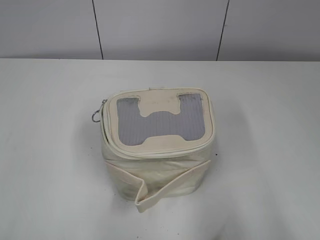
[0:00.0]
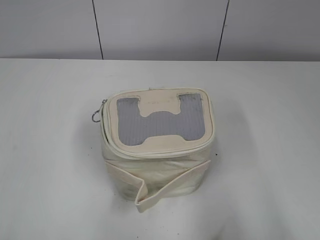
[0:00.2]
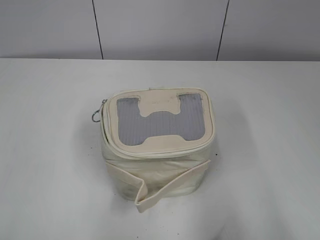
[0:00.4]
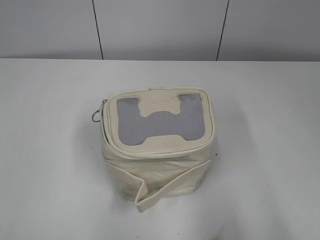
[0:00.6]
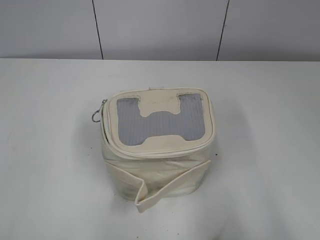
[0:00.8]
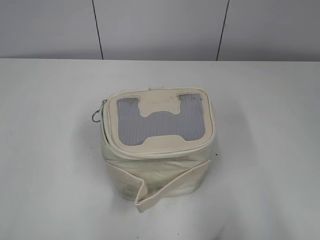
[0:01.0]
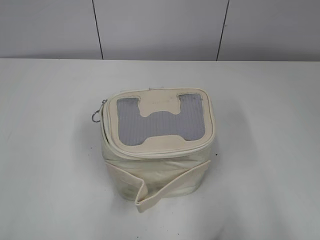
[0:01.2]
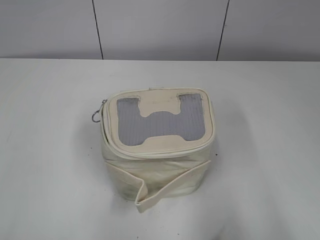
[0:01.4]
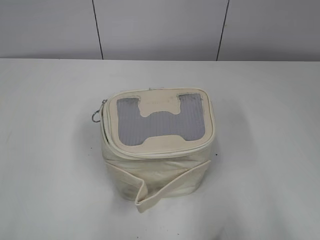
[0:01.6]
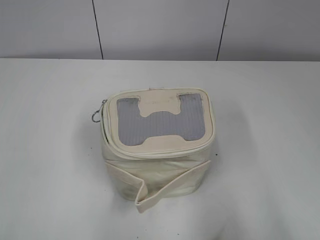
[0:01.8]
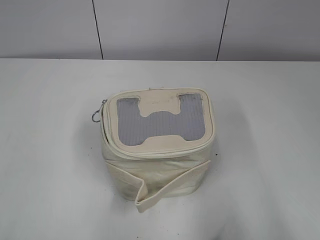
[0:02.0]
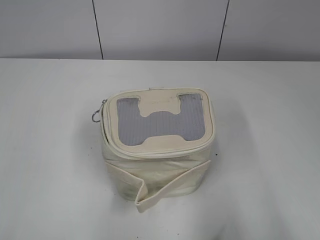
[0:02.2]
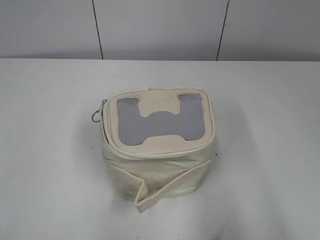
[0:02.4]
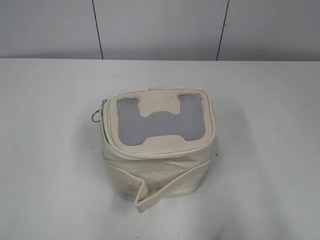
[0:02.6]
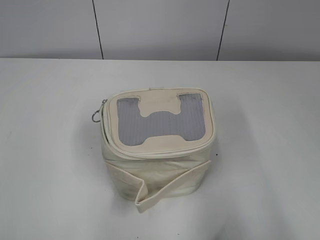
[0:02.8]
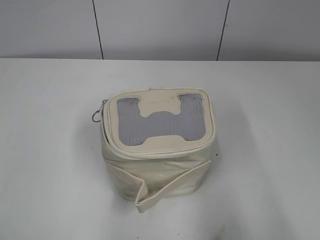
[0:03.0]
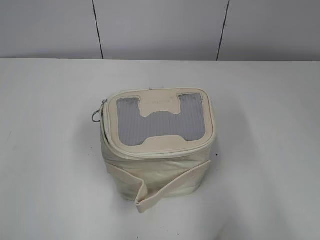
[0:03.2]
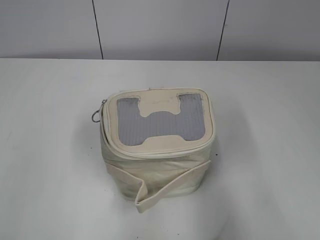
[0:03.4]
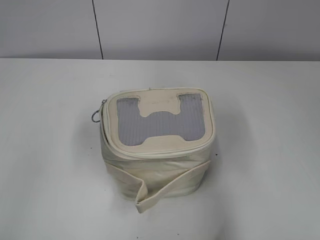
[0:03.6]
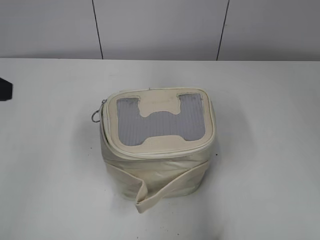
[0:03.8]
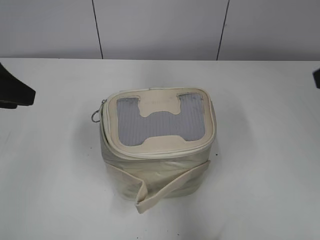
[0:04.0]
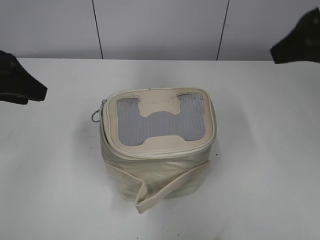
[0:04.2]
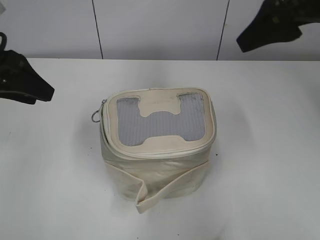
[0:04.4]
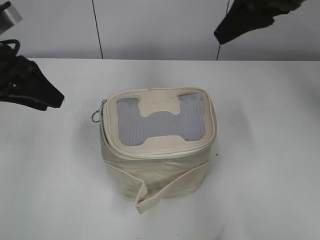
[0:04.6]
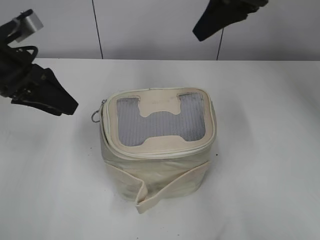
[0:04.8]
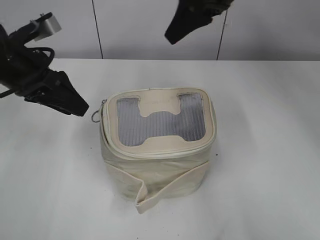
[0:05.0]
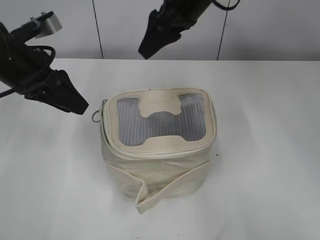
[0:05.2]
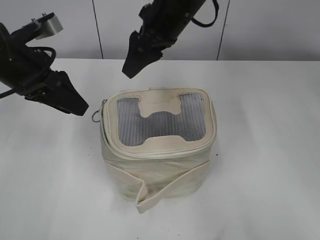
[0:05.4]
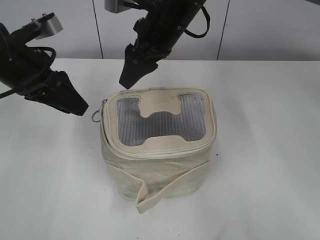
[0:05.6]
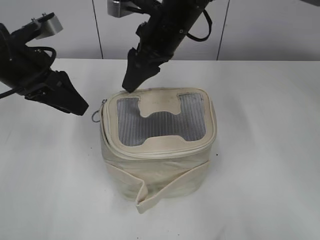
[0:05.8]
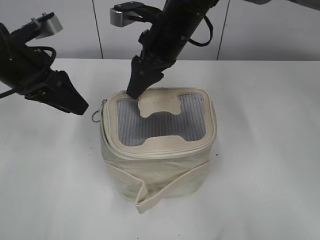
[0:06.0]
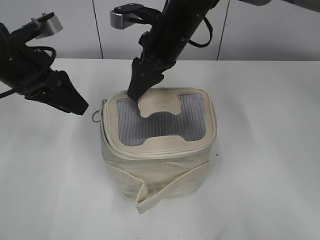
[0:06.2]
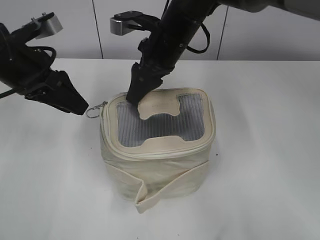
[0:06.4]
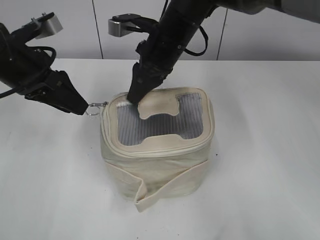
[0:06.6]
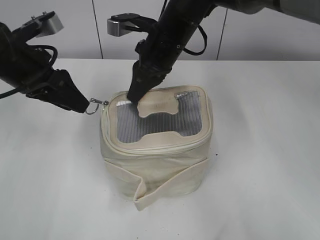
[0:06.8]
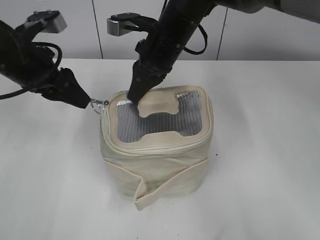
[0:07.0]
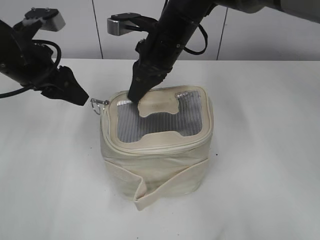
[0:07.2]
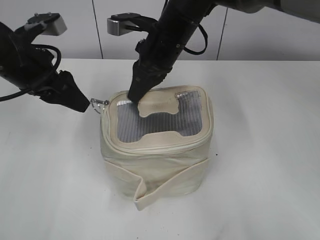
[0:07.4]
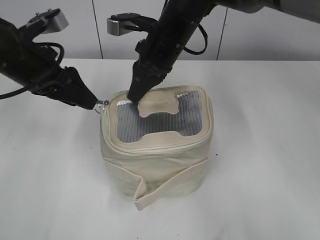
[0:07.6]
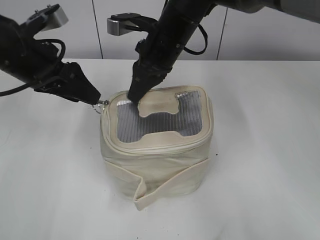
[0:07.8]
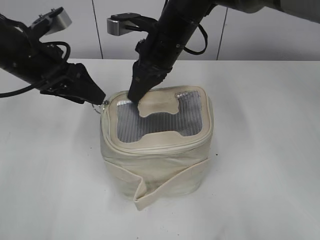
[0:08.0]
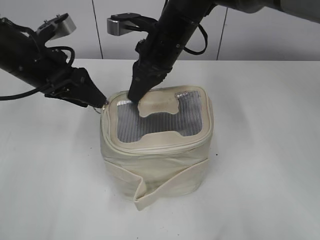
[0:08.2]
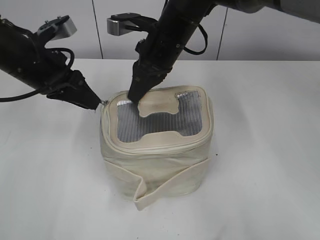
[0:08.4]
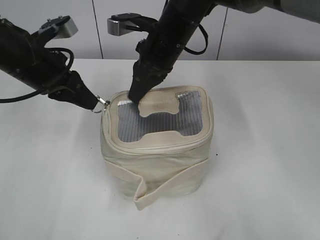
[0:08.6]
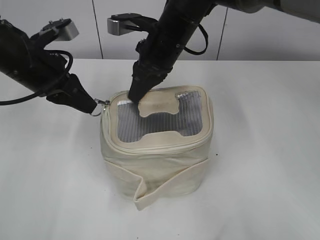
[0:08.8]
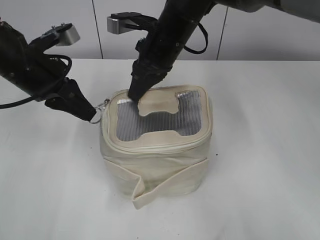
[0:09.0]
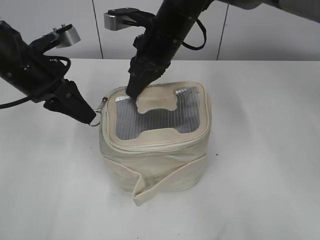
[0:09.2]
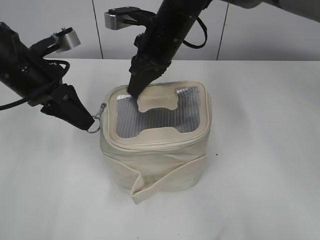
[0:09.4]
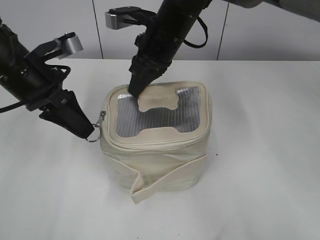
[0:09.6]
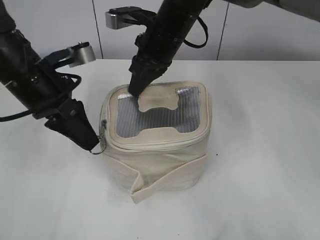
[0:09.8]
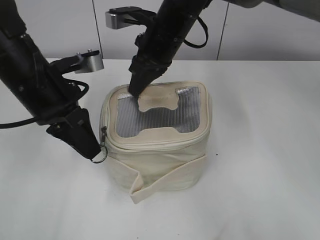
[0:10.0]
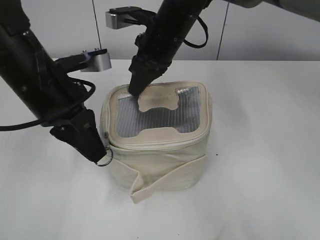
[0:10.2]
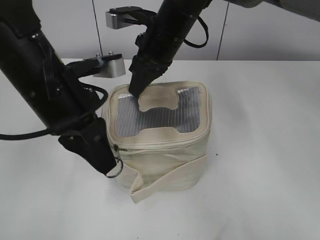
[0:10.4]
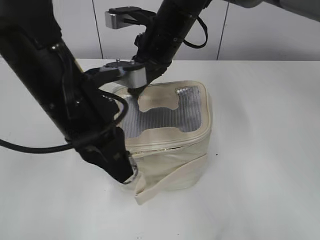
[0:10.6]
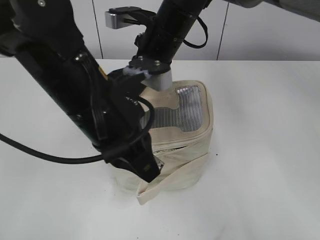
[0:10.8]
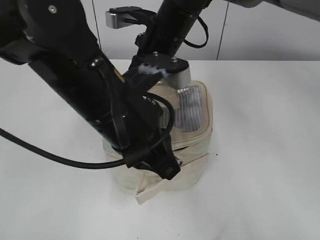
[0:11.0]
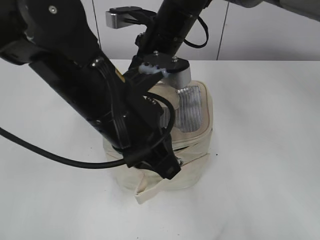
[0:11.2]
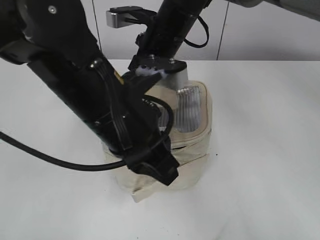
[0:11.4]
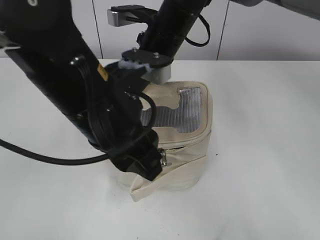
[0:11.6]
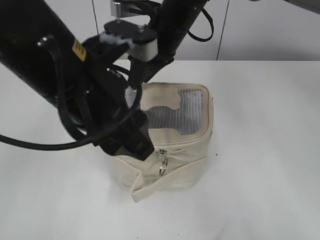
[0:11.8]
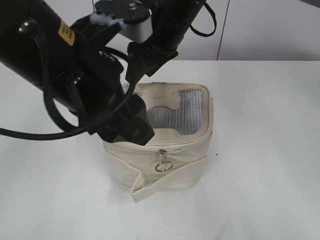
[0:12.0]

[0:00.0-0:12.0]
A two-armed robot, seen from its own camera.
Step, 0:00.0 to 0:11.4: Zip up the bag with your left hand.
Step, 0:11.6 to 0:11.8: Hold the bag with your right hand.
0:03.0 to 0:04.4: The right gripper is displaced forward and to the left by about 30 cm. Meanwhile the left gripper moves forward, approximately 25 cm.
0:04.4 to 0:06.0: The left gripper changes place by roughly 5 cm. The right gripper heads to the left, downward and forward, covering about 25 cm.
0:06.0 to 0:07.6: The right gripper closes up.
0:07.6 to 0:09.0: The left gripper closes.
0:09.0 to 0:10.4: The left gripper moves backward and to the right, some 10 cm.
0:10.4 to 0:12.0: The left gripper goes approximately 5 cm upward, and opens its fingers; the right gripper opens its fingers.

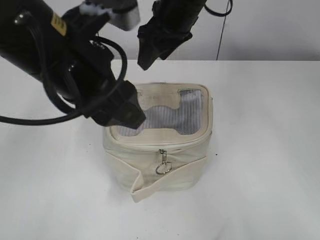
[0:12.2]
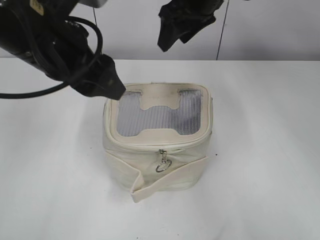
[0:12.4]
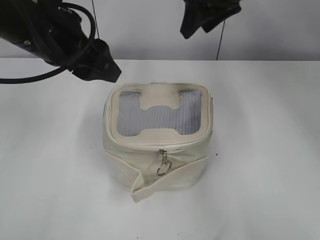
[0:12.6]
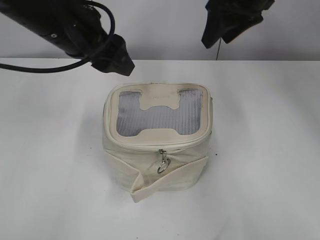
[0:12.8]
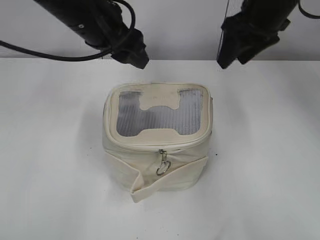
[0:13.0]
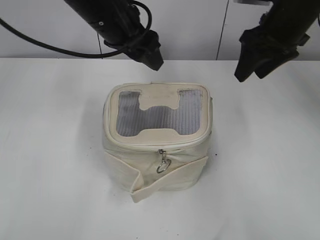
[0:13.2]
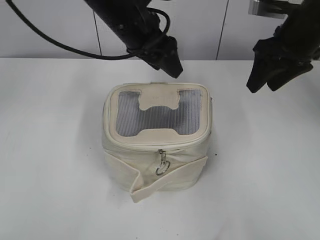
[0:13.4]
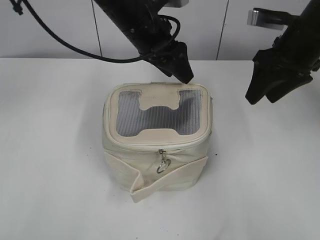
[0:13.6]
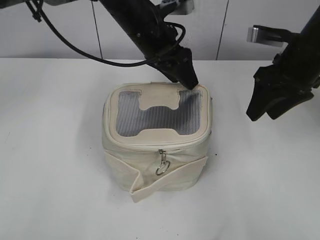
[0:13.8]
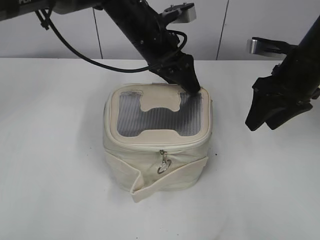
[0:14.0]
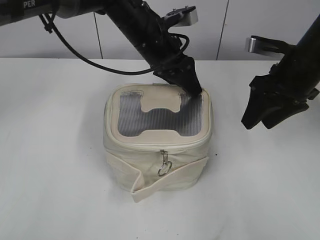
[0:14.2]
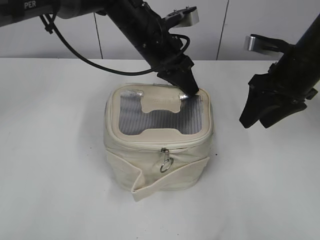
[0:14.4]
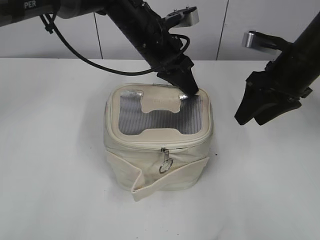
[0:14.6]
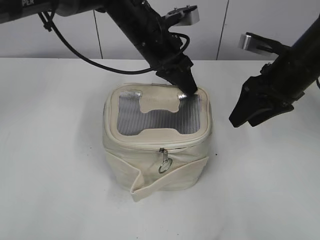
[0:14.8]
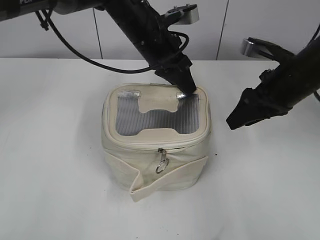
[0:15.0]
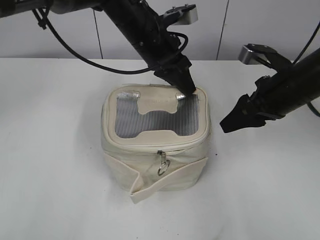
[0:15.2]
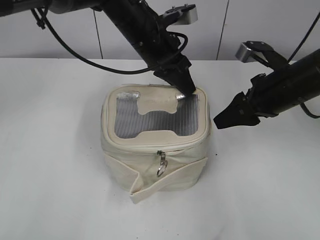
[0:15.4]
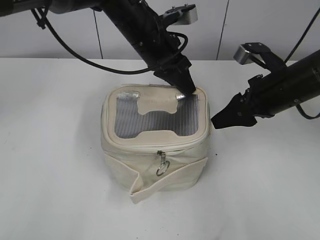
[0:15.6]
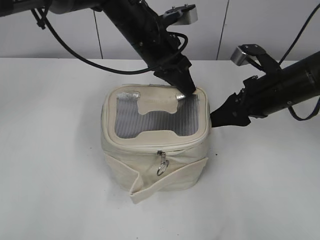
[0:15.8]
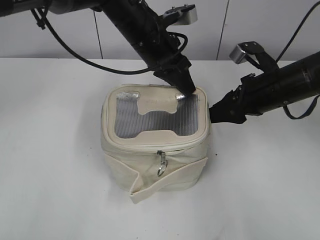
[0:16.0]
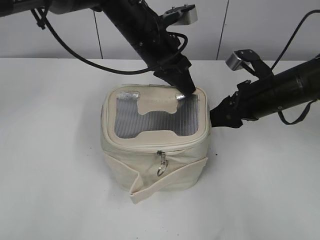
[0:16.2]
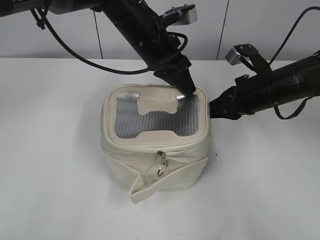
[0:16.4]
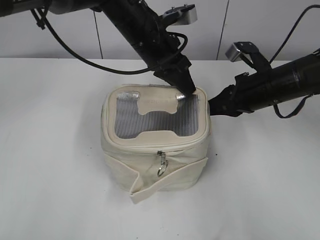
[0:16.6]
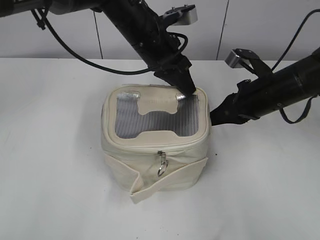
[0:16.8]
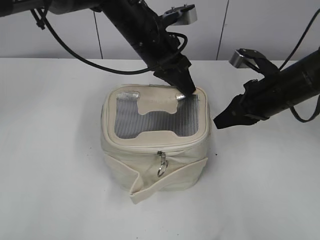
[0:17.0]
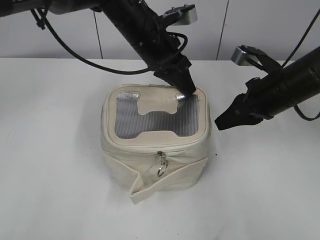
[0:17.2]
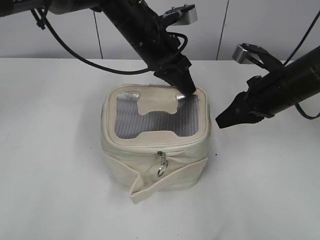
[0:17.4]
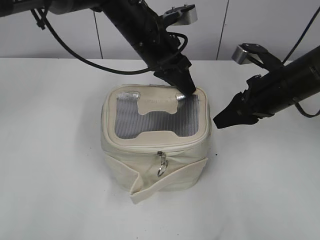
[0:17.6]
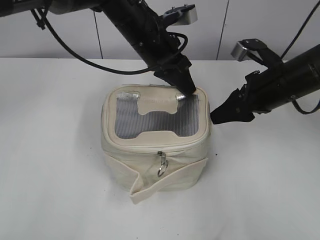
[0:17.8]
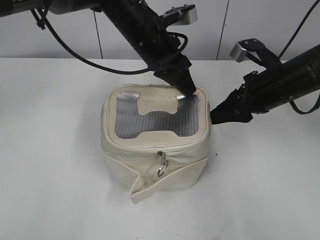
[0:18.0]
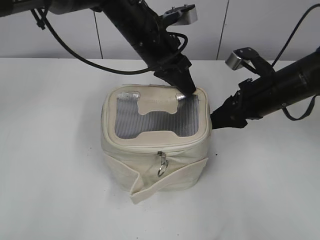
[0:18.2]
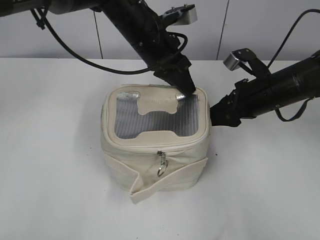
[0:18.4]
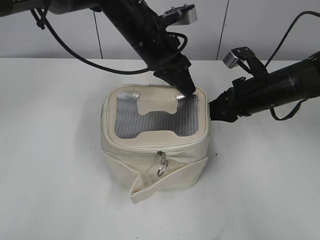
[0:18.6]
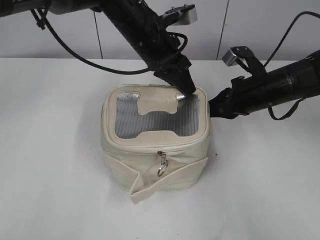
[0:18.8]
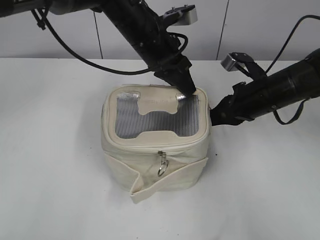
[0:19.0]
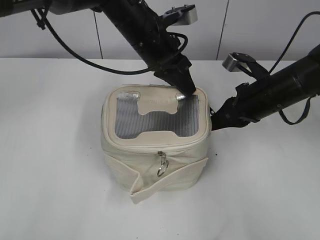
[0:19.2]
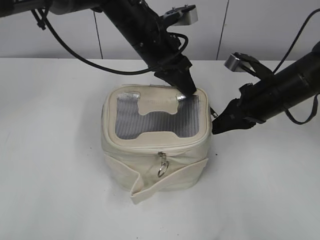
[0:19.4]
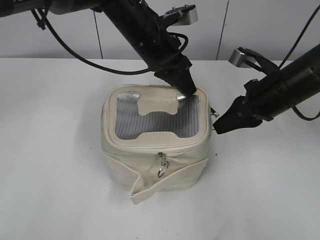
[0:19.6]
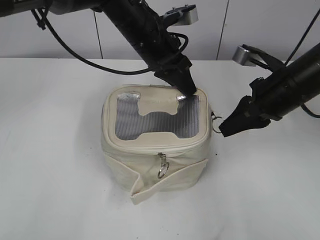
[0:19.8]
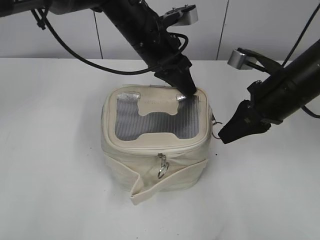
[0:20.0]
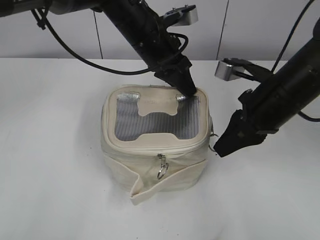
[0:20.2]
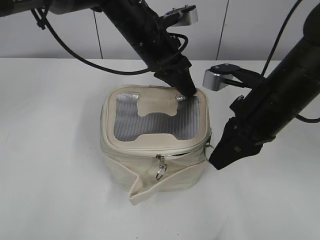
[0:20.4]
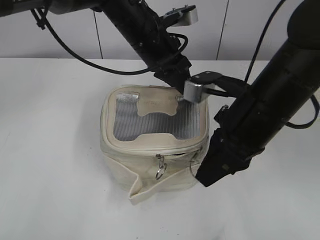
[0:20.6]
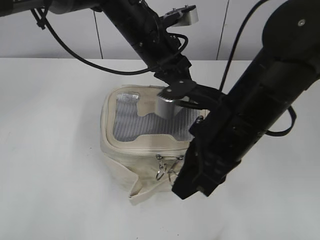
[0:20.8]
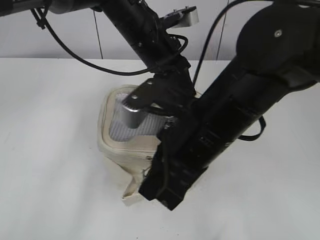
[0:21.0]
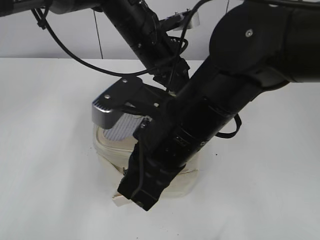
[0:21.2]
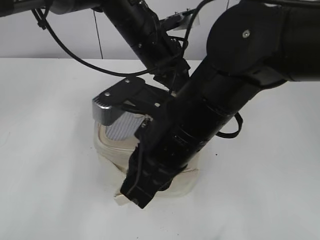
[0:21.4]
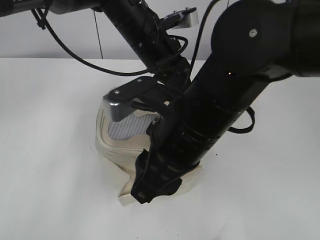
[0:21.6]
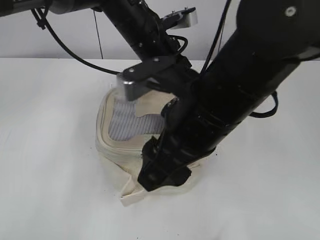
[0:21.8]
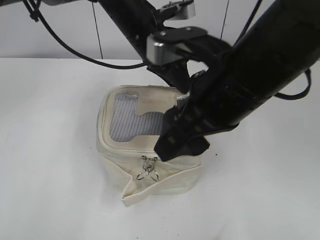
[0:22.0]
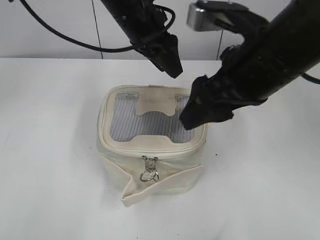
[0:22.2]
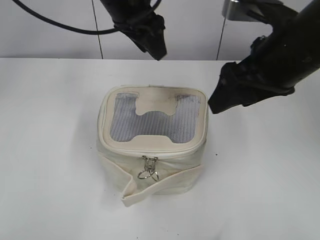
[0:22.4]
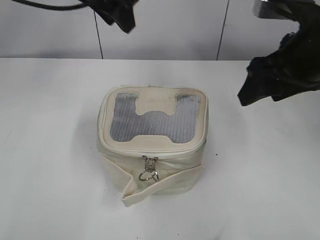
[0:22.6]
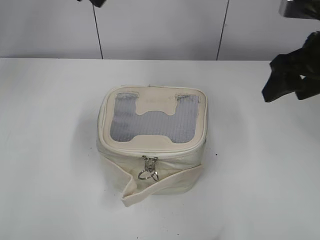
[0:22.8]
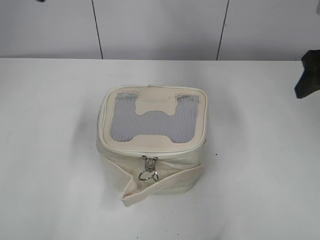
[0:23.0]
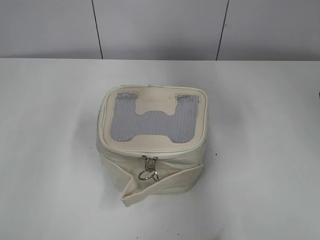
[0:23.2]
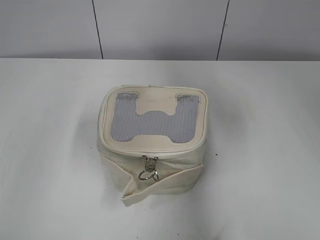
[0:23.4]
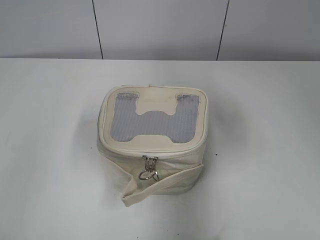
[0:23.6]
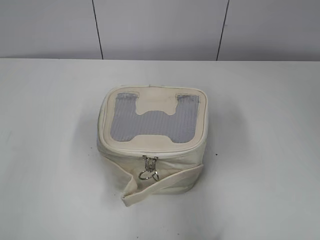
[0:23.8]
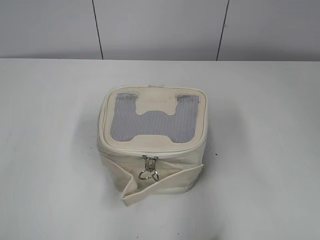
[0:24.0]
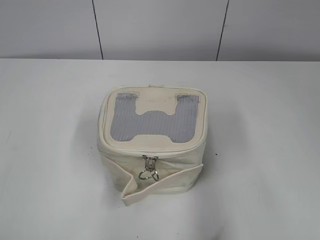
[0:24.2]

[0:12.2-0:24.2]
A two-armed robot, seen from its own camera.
Step, 0:12.2 to 0:21.8: Zip up the bag with your right hand.
0:12.2 to 0:13.8: The left gripper travels forward by approximately 20 cm. The right gripper heads to the right, covering roughly 20 cm.
0:13.8 to 0:15.2: The right gripper ends up some 5 cm from where it was. The left gripper closes.
0:15.2 to 0:16.6: The right gripper closes.
0:16.6 to 0:18.2: The right gripper opens its fingers.
0:18.2 to 0:19.8: The right gripper closes its fingers.
0:19.8 to 0:21.2: The right gripper moves to the left and backward, roughly 20 cm.
0:21.2 to 0:22.6: The right gripper is displaced to the right, forward and upward by approximately 15 cm, and opens its fingers, while the left gripper is displaced upward and to the left by roughly 15 cm, and opens its fingers.
0:22.6 to 0:24.2: The left gripper moves backward and to the left, approximately 40 cm; the right gripper is displaced backward and to the right by roughly 20 cm.
